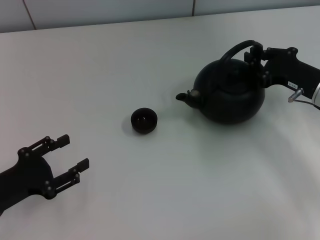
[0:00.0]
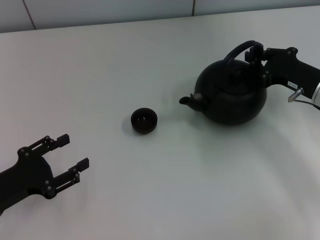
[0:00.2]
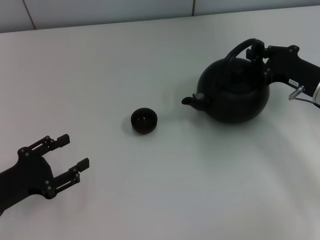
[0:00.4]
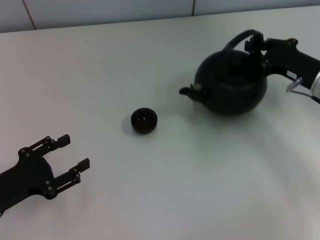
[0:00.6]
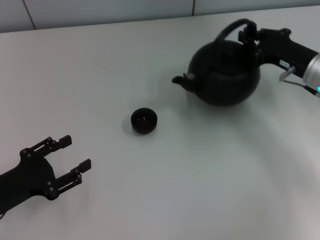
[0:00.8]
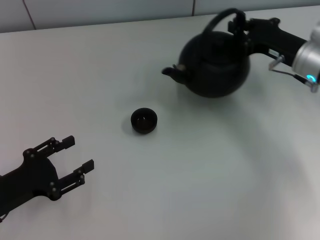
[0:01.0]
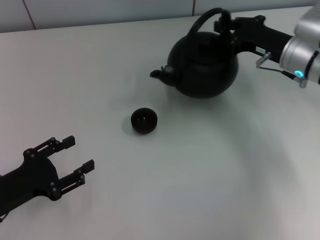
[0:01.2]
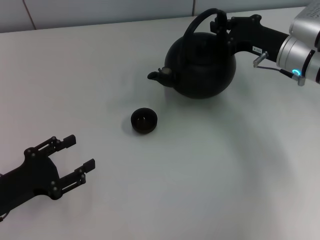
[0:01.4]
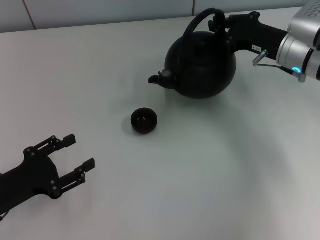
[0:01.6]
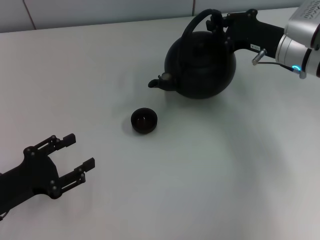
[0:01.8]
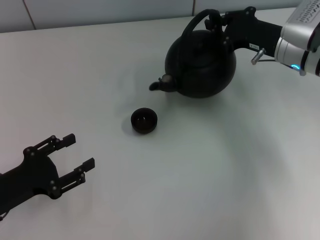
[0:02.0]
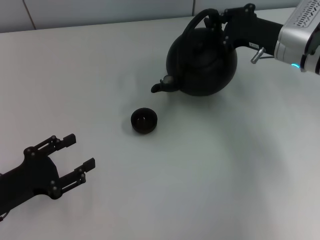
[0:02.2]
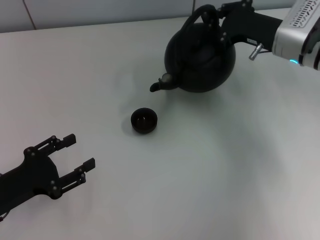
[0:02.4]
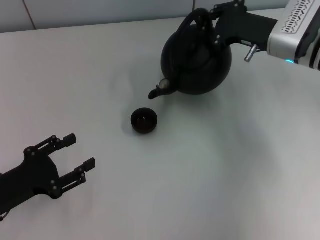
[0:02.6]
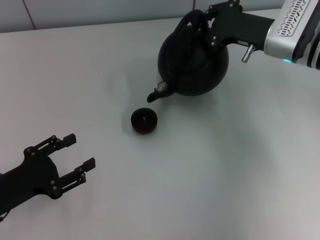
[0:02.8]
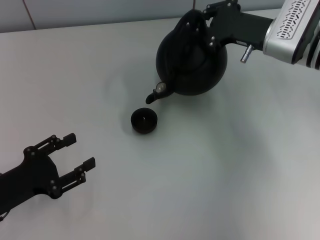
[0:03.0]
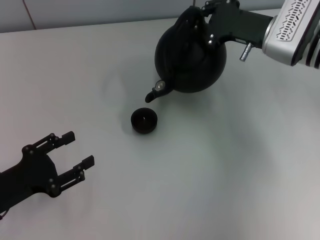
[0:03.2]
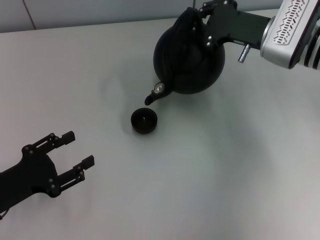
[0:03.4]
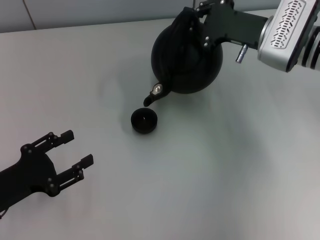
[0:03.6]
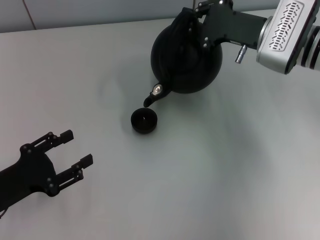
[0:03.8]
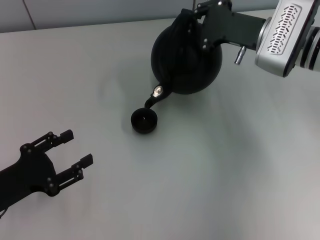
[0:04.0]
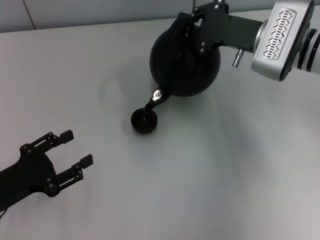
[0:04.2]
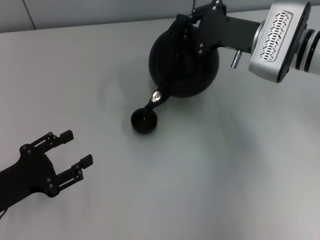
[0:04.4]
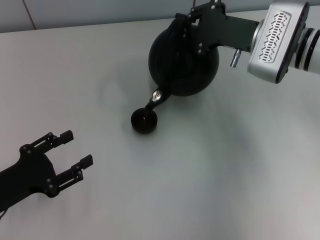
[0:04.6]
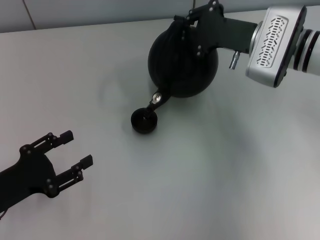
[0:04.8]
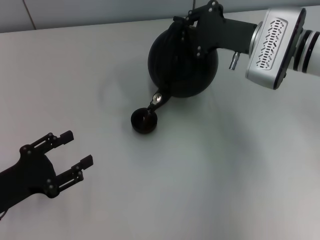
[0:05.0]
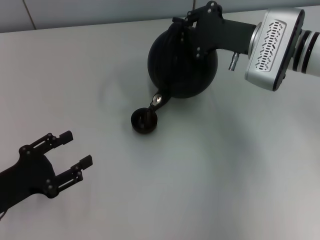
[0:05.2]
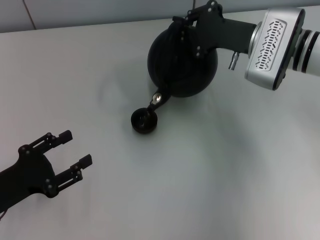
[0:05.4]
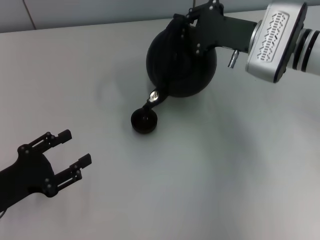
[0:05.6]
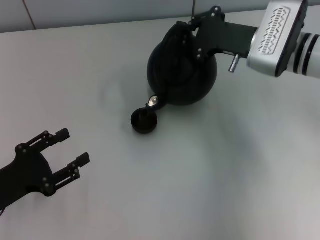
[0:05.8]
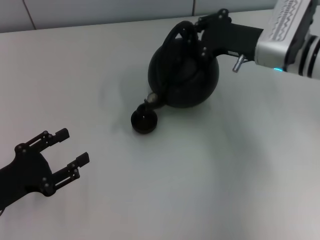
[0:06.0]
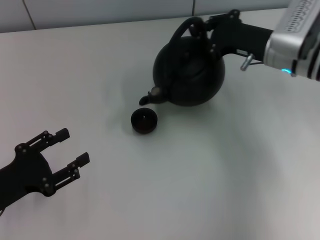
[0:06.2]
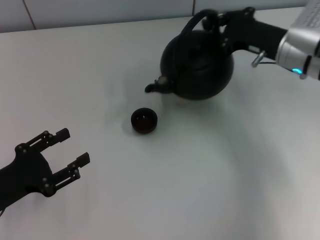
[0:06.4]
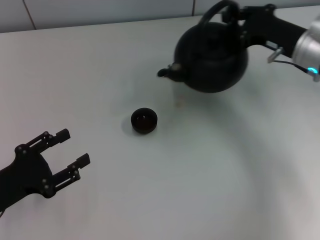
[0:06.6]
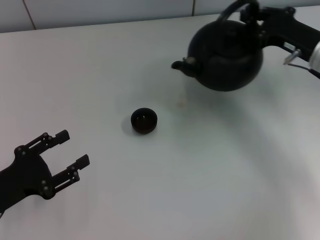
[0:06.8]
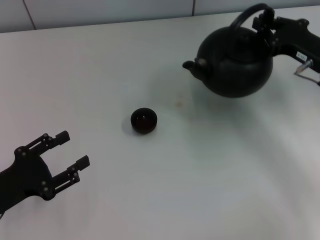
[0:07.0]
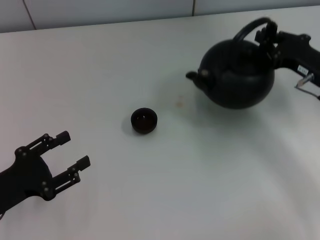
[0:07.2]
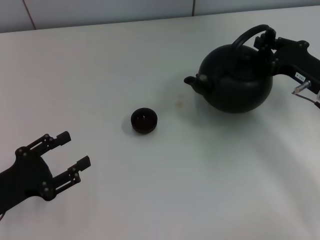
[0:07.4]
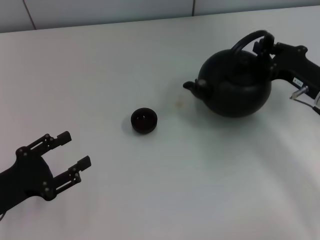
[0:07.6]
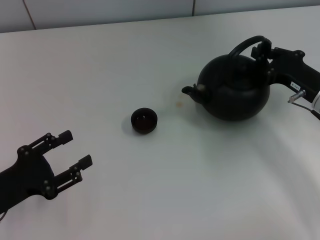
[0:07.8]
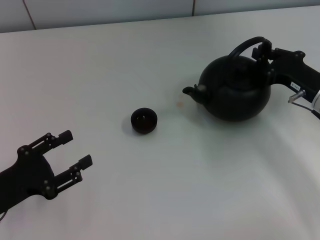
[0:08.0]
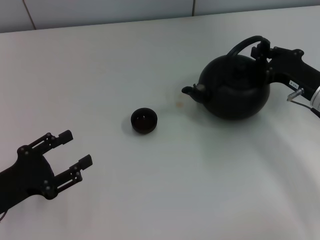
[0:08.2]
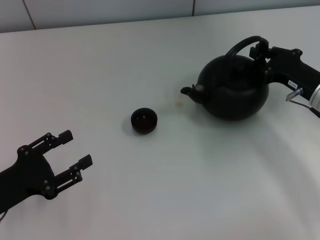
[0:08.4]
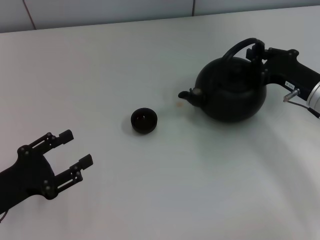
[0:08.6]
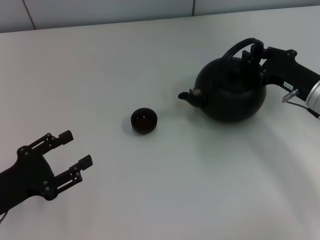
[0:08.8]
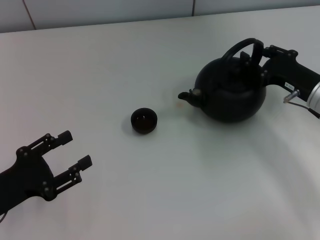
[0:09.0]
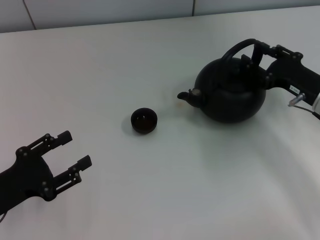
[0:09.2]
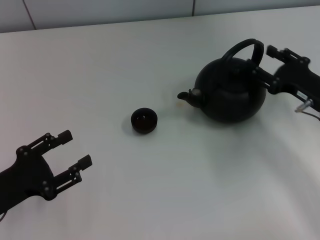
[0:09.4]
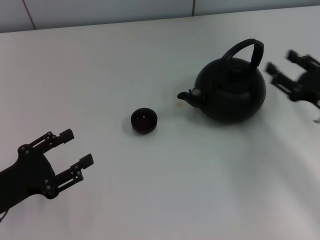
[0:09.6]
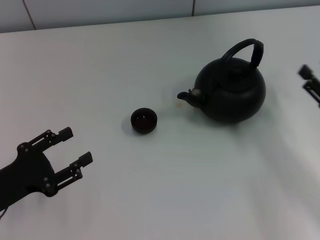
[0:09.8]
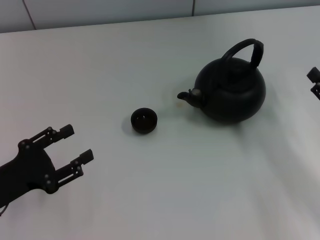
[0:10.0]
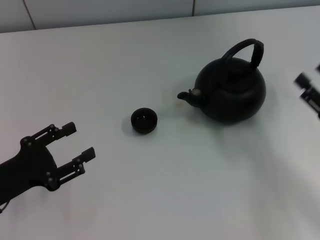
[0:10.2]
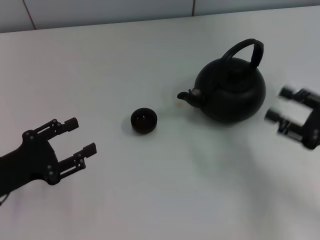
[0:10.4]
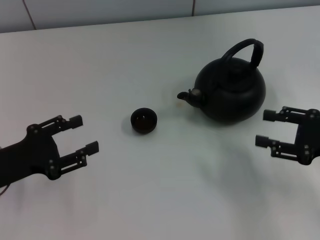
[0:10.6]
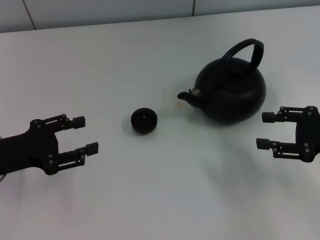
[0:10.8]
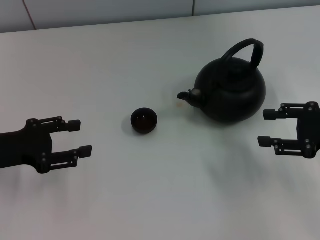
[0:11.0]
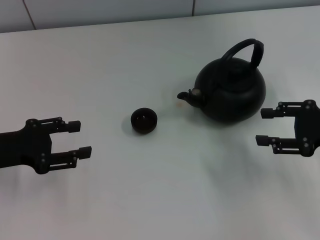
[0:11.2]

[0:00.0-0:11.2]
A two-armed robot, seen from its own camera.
Task of the whole recording: Grasp the handle of the teapot with one hand and pour tea into the teacup.
Step, 0:06.4 to 0:09.4: Put down the teapot with the right gripper.
0:00.0 to 0:01.6: The right gripper travels forward by approximately 5 cm.
0:03.2 to 0:04.8: The grippers stay close to where they were, moving slightly.
0:06.4 to 0:08.0: The right gripper heads backward, downward and to the right, covering some 10 cm.
0:08.0 to 0:09.6: The right gripper shifts approximately 5 cm backward, and opens its fingers.
0:09.6 to 0:11.2: The left gripper is displaced forward and upward by about 10 cm, while the right gripper shifts roughly 5 cm upward.

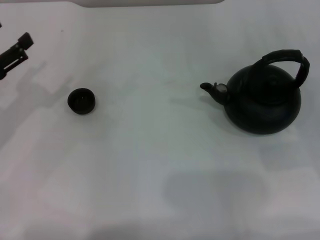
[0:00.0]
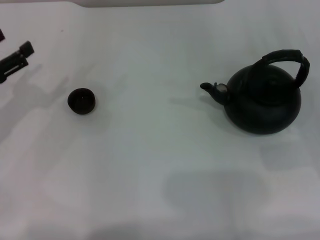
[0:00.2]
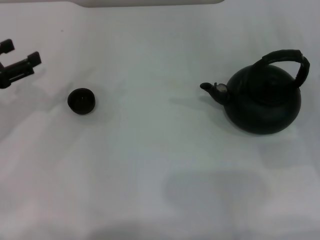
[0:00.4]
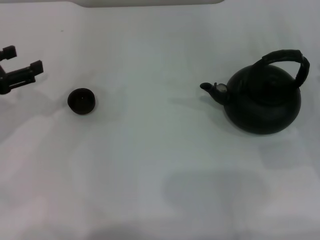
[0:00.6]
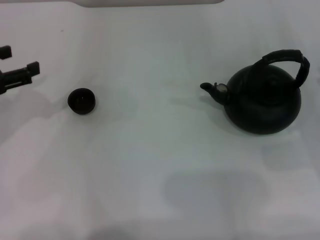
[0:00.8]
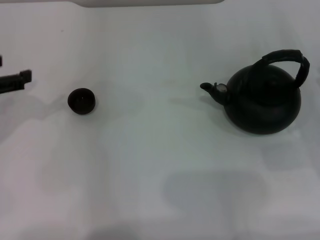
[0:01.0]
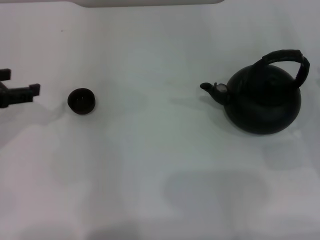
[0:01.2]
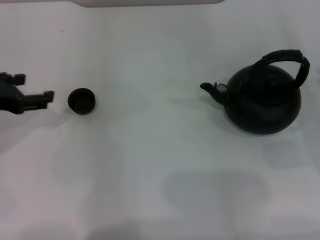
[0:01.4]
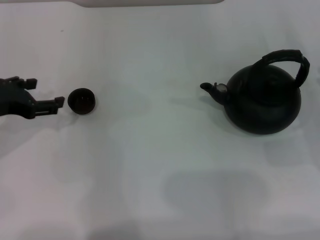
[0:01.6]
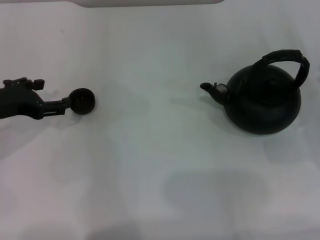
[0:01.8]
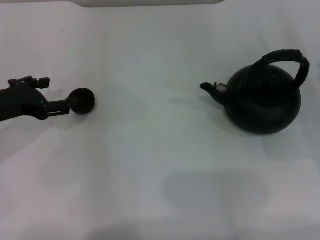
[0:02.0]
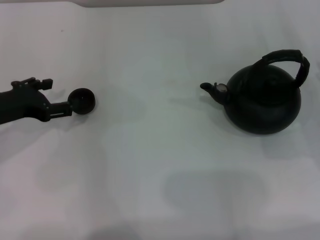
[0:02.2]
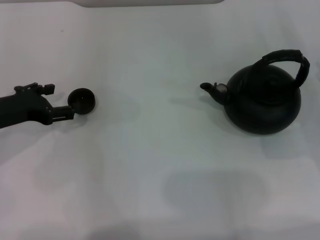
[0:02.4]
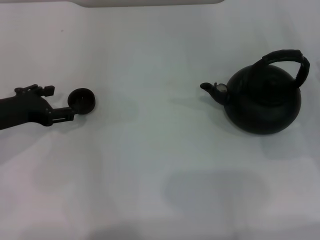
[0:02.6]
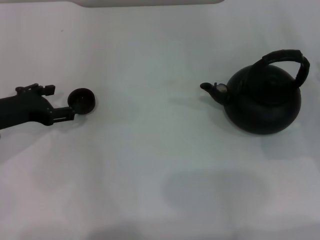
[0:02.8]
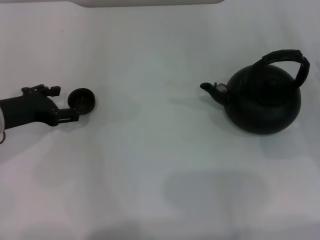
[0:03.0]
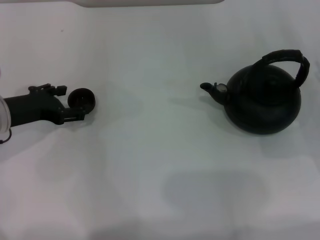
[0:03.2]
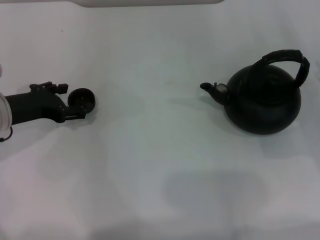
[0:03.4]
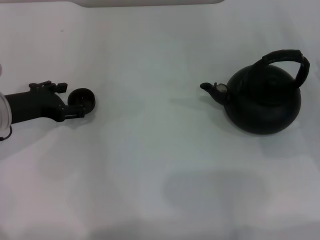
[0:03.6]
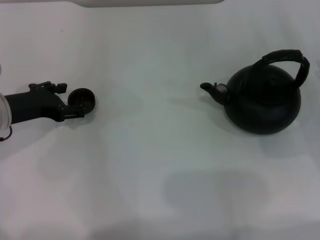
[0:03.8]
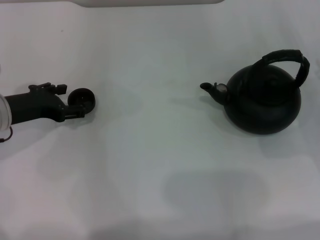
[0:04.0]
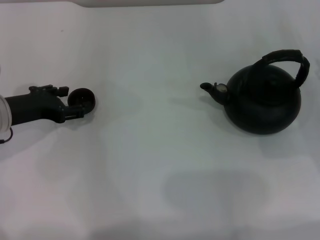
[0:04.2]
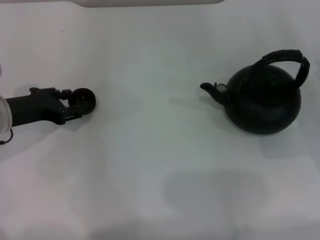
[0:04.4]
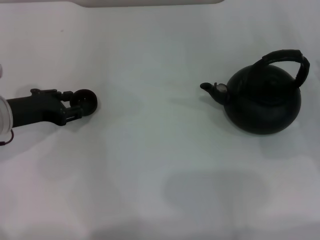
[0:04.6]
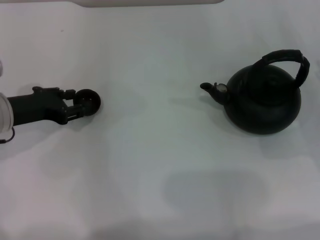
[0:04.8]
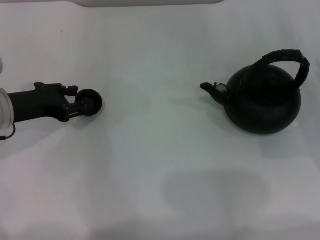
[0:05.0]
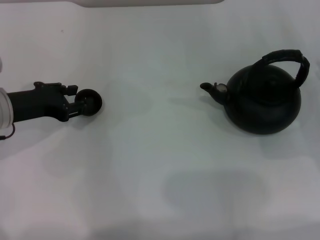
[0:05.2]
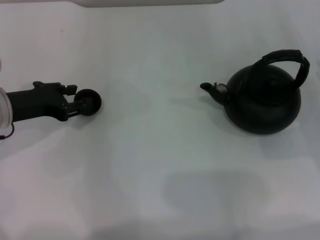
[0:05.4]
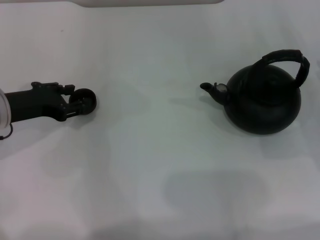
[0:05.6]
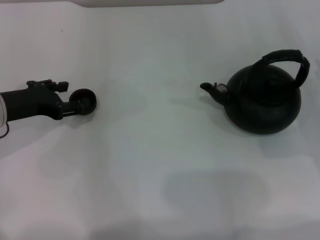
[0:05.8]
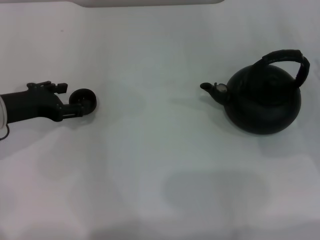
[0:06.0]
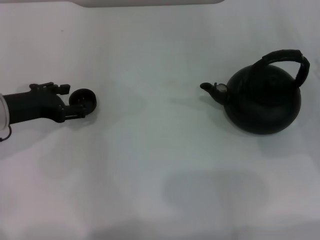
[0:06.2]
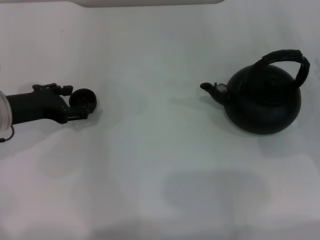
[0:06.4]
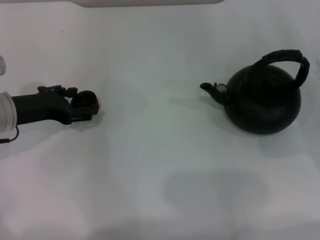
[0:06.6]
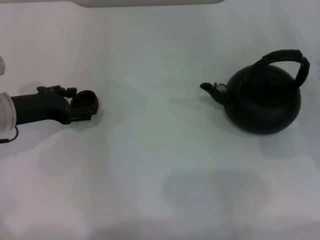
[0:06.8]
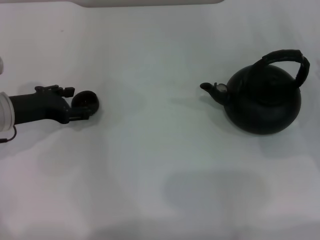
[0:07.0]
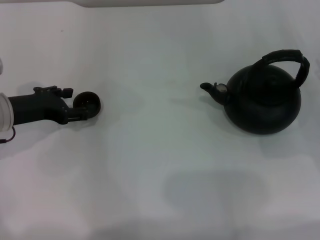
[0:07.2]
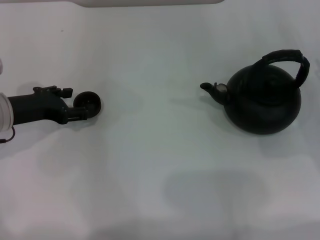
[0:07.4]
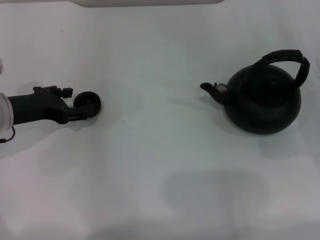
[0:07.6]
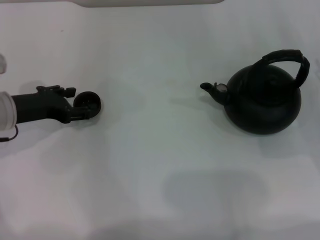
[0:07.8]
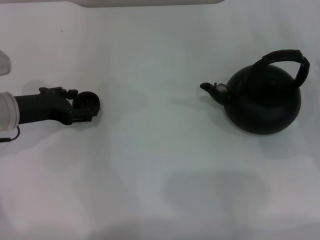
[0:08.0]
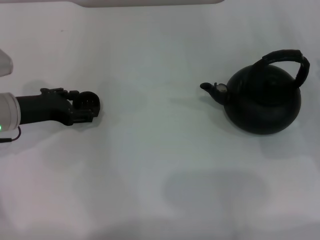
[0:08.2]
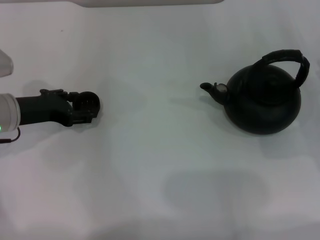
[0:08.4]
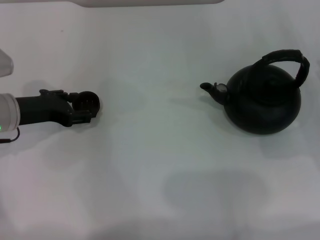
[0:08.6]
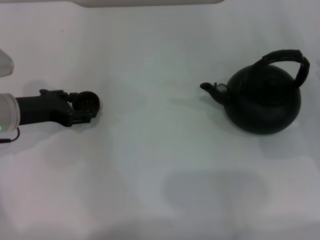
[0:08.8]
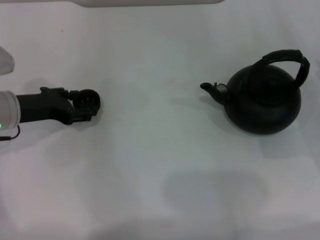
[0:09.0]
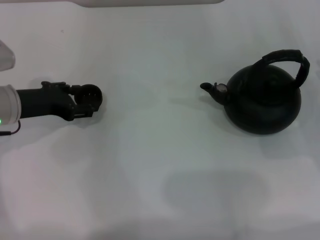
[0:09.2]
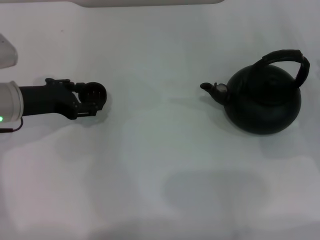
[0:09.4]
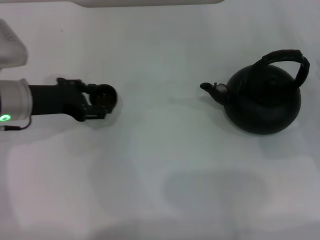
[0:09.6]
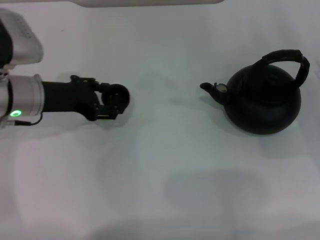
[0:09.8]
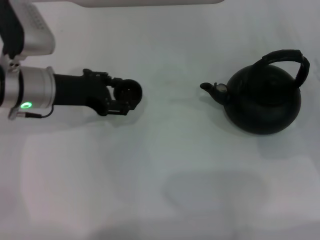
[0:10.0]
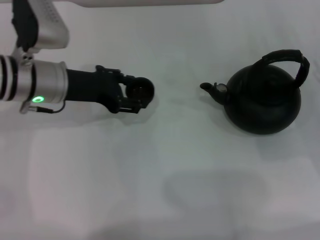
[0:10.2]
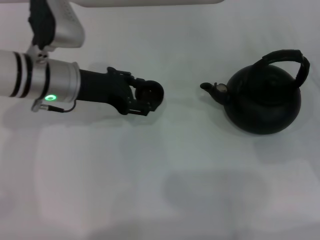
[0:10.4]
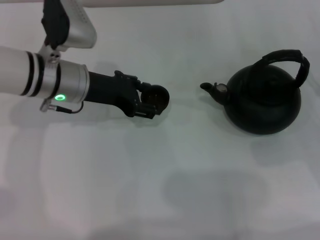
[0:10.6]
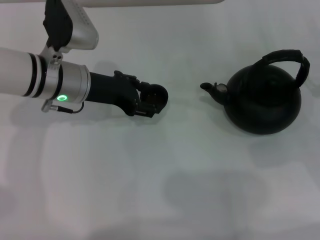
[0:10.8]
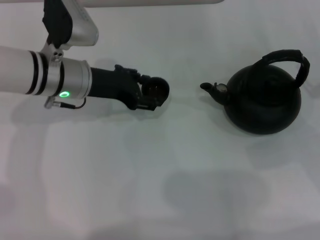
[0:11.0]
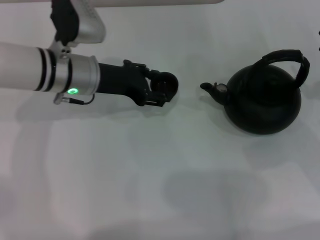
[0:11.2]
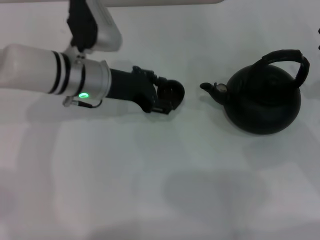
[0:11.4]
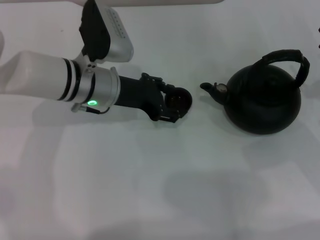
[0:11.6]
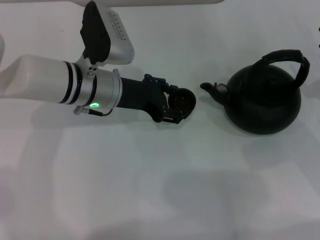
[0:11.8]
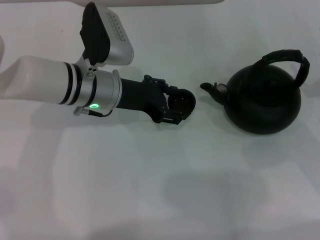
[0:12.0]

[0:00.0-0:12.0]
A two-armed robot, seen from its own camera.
Task of the whole recording: Grasp the handle of the teapot with one hand and pour tea into the teacup.
Step, 0:00.0 to 0:09.4: Pick up the teacup with the left gripper.
0:00.0 to 0:01.6: The left gripper moves roughly 5 cm.
0:01.6 to 0:03.0: The left gripper changes place by some 5 cm.
0:03.0 to 0:04.4: The left gripper closes up.
0:04.4 to 0:06.0: The left gripper closes and opens again.
0:06.0 to 0:07.6: The two grippers keep their place.
0:07.6 to 0:09.0: The left gripper closes.
0:09.0 to 0:10.4: The left gripper heads to the right, covering some 10 cm.
0:10.4 to 0:12.0: The left gripper goes about 5 cm to the right.
